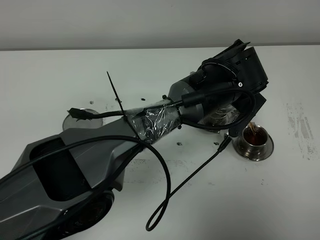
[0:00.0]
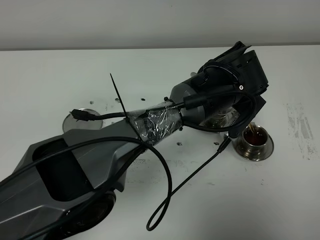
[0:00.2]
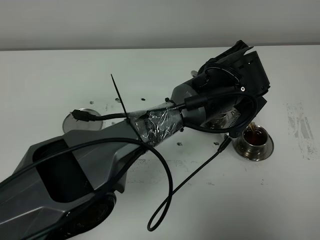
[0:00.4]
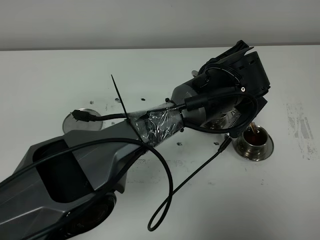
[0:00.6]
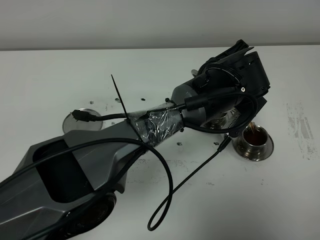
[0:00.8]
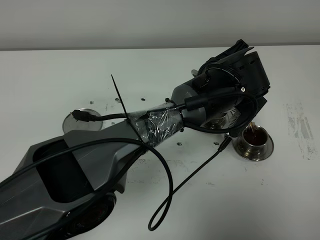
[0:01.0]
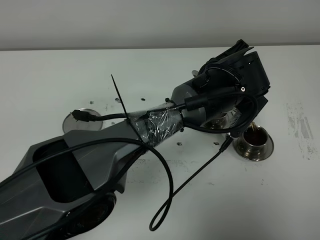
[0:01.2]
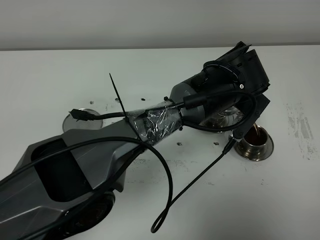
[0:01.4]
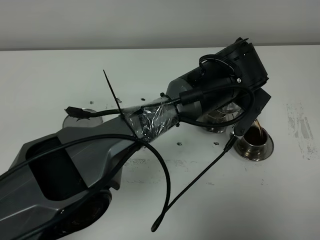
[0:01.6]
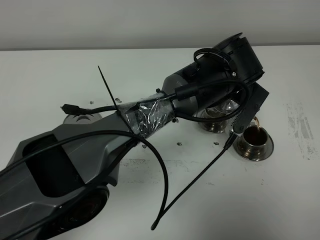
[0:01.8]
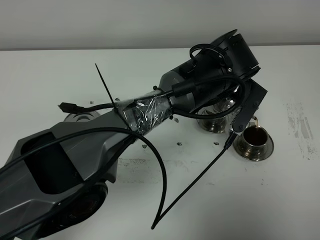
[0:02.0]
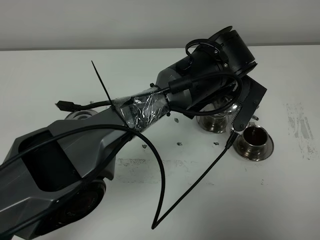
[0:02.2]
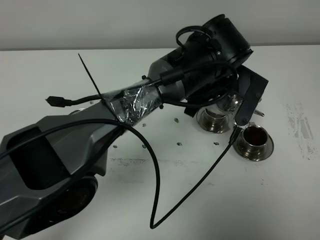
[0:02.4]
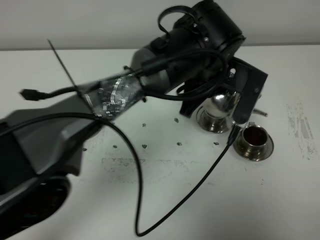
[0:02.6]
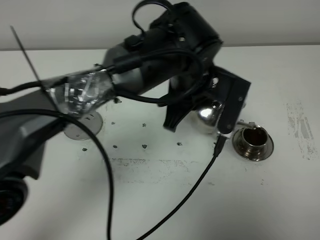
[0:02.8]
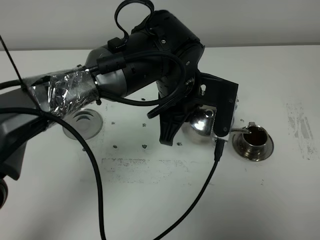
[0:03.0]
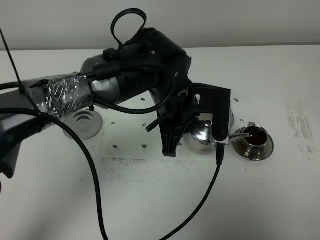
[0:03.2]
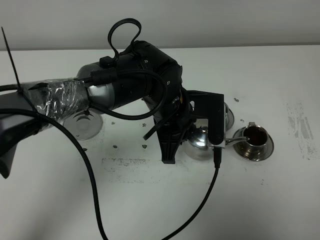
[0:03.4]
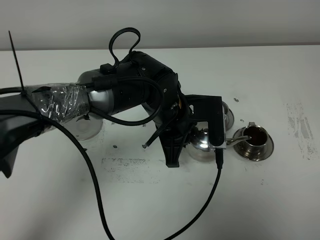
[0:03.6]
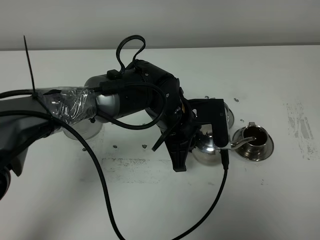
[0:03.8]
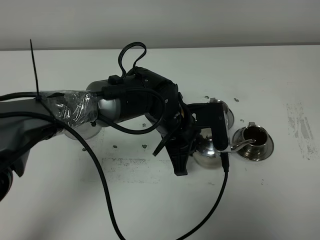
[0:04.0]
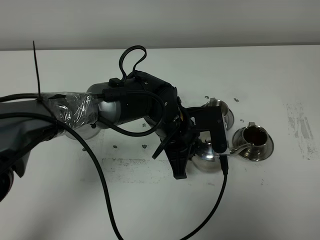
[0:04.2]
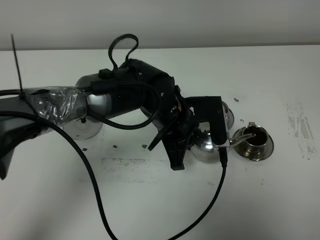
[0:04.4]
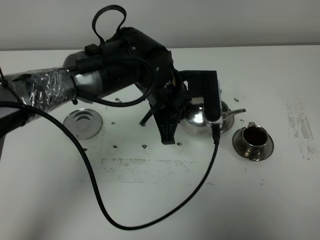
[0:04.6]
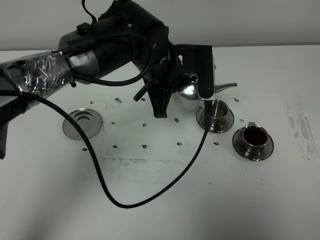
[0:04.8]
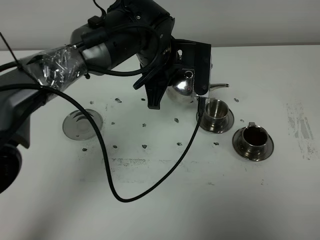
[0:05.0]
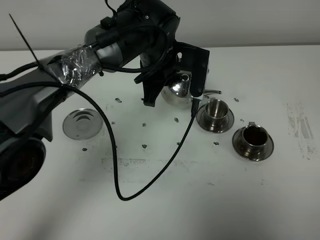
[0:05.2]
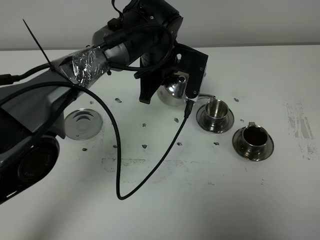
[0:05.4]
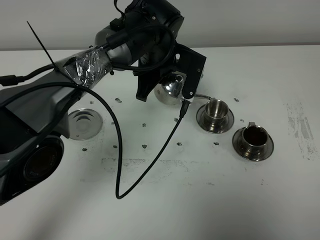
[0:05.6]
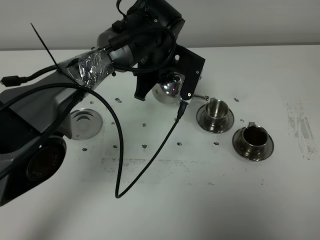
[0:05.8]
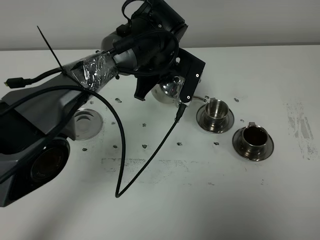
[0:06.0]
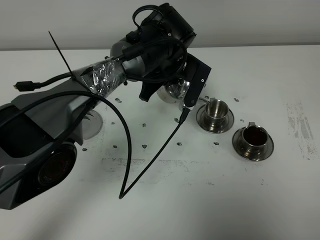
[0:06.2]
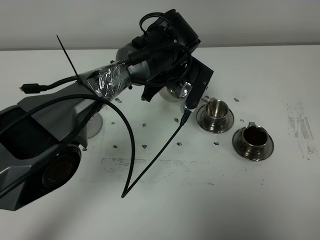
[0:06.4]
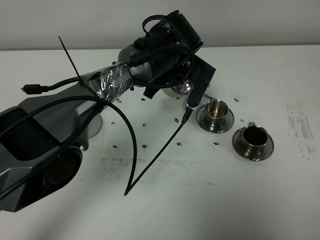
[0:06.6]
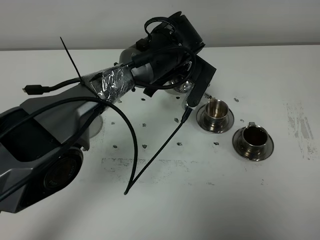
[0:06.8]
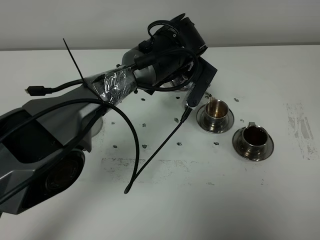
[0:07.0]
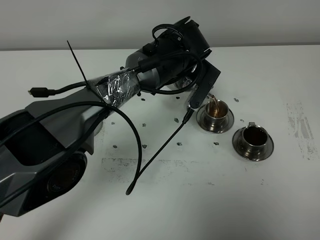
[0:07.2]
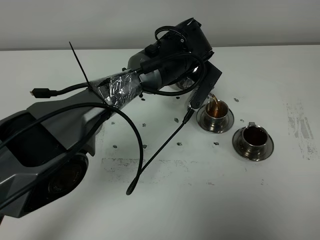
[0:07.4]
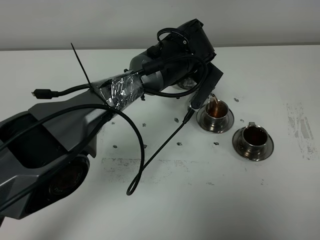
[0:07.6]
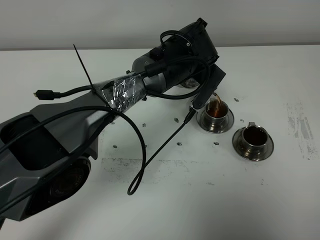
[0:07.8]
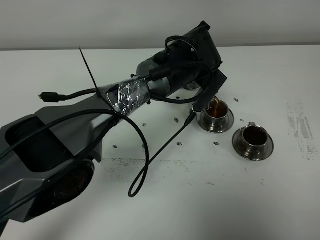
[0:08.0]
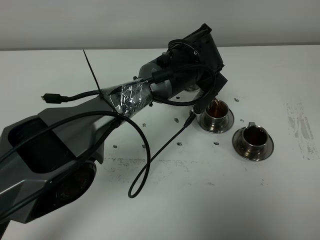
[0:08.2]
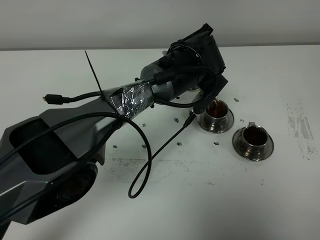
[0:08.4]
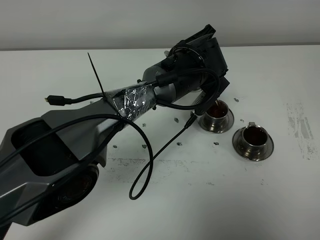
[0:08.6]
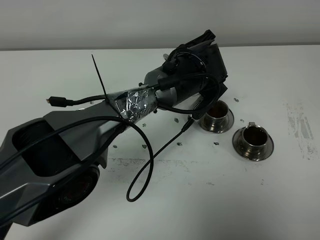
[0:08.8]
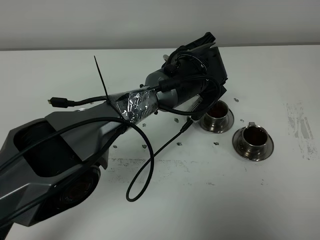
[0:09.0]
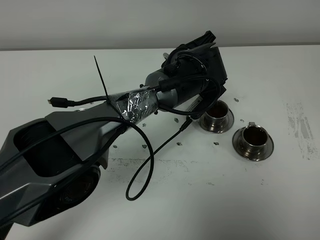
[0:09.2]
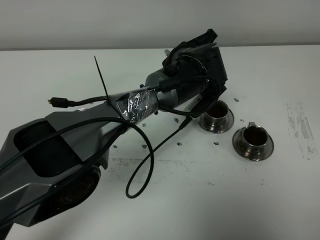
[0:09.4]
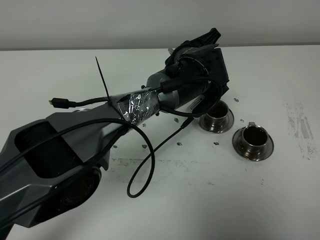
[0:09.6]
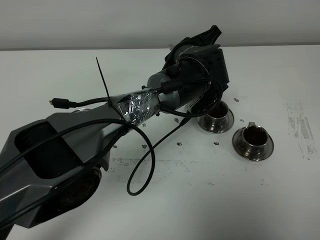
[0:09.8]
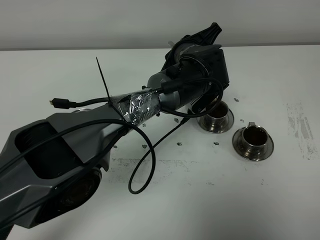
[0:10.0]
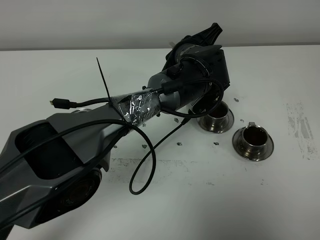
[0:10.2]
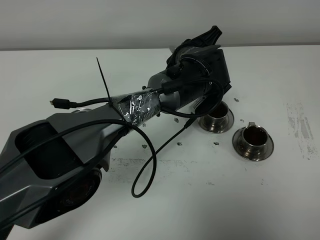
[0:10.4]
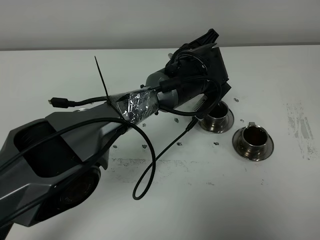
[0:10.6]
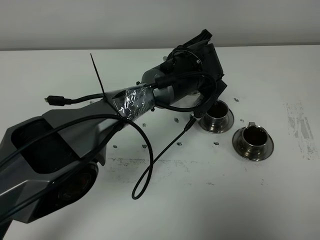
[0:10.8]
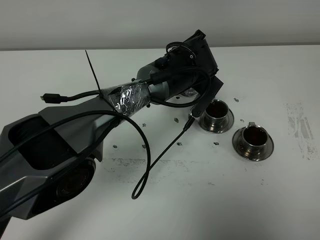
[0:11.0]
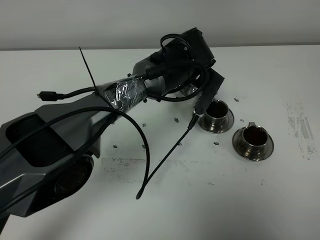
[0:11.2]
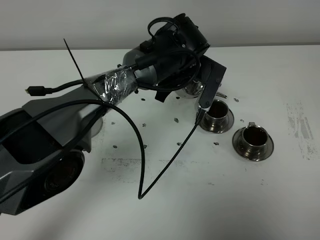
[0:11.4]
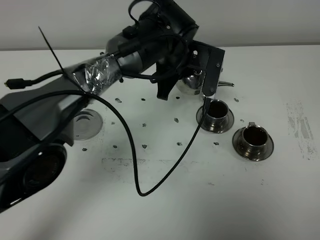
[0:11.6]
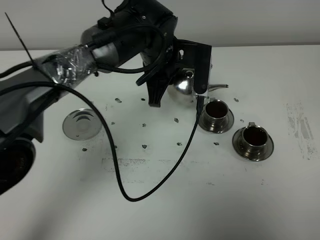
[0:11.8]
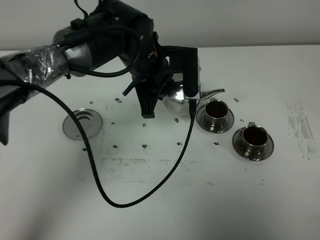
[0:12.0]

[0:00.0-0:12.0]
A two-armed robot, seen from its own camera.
Task of the whole recording: grasp the stainless steel teapot and pour the tea into the two stainless steel teacups one by one, put the stainless steel teapot back in its original place.
Step, 0:00.0 to 0:11.2: Pour tea into the teacup with the left gripper.
0:00.0 to 0:01.6: Both grippers stay about where they are.
0:01.6 to 0:03.0: The left gripper is displaced to the left by roughly 10 cm.
0:03.0 to 0:04.4: The left gripper moves downward, approximately 5 cm.
0:04.4 to 0:06.0: The left gripper heads forward, covering about 10 cm.
0:07.6 to 0:10.4: The grippers move only a little.
0:10.4 to 0:12.0: The left gripper goes about 10 cm to the left.

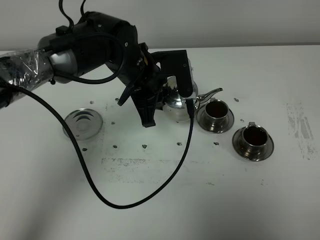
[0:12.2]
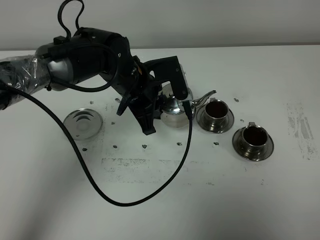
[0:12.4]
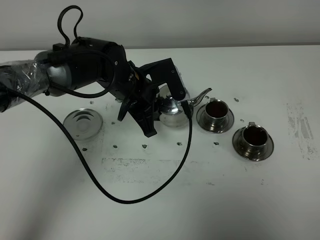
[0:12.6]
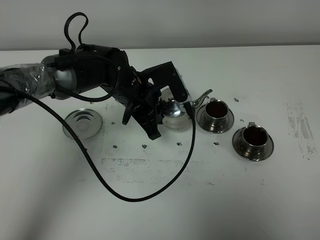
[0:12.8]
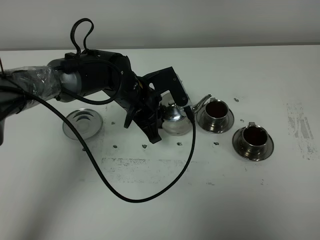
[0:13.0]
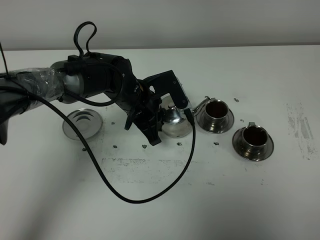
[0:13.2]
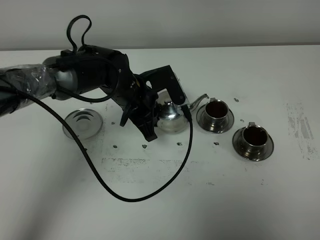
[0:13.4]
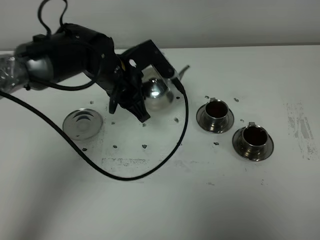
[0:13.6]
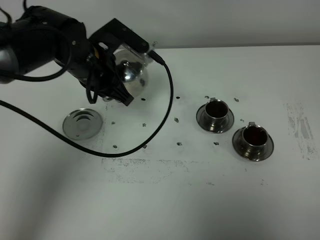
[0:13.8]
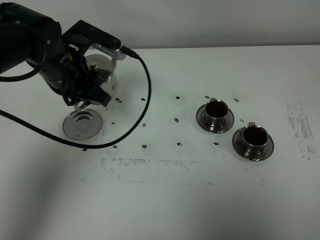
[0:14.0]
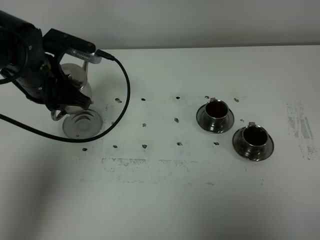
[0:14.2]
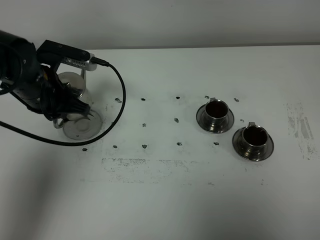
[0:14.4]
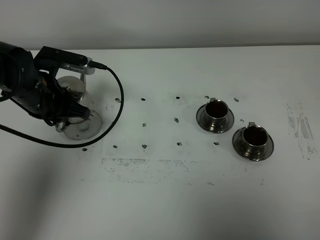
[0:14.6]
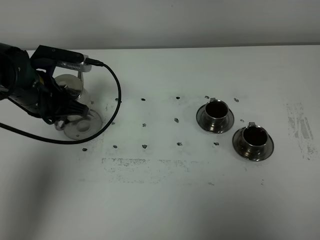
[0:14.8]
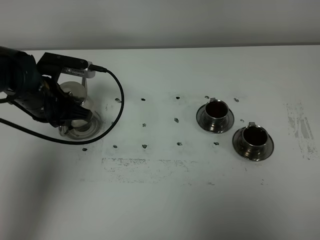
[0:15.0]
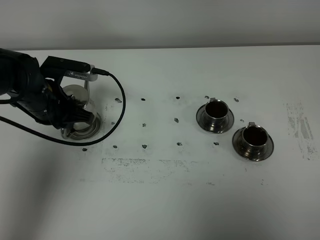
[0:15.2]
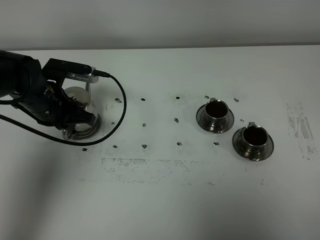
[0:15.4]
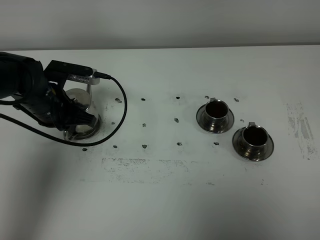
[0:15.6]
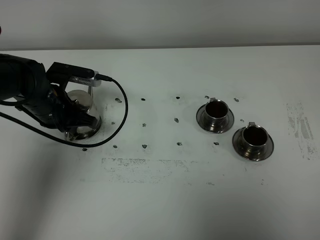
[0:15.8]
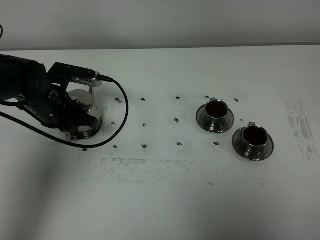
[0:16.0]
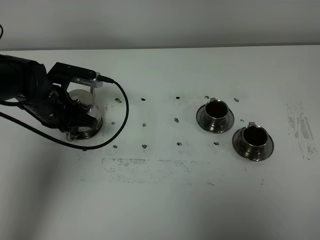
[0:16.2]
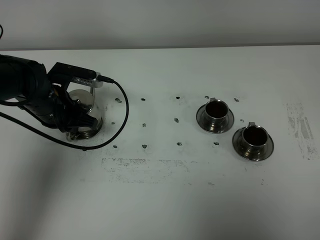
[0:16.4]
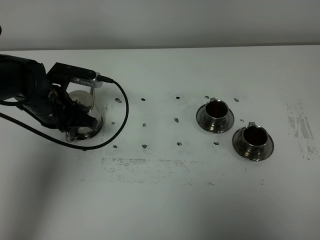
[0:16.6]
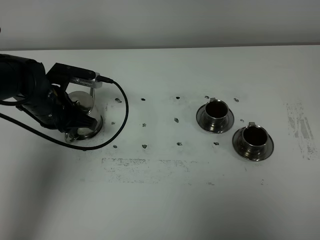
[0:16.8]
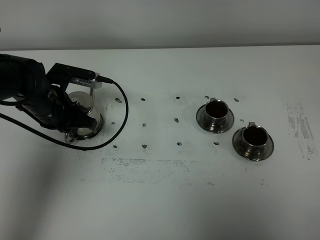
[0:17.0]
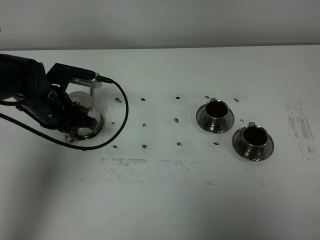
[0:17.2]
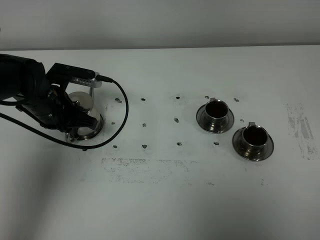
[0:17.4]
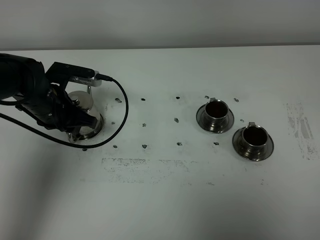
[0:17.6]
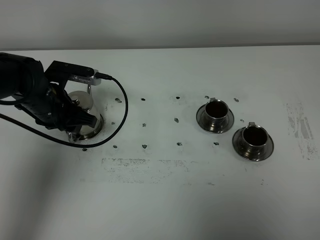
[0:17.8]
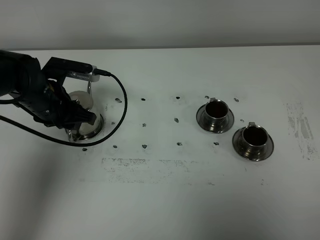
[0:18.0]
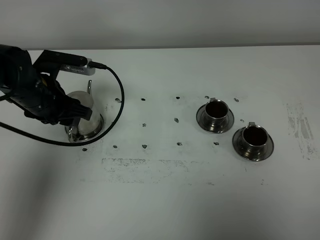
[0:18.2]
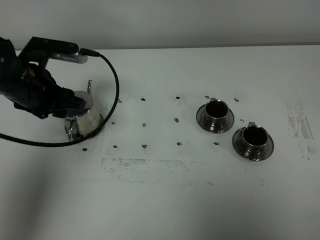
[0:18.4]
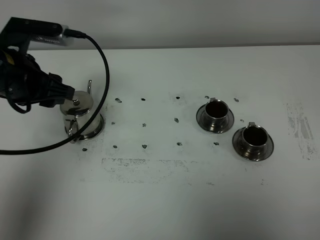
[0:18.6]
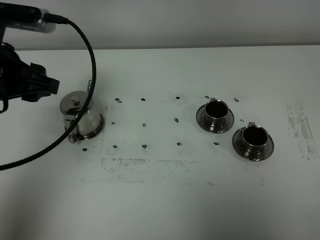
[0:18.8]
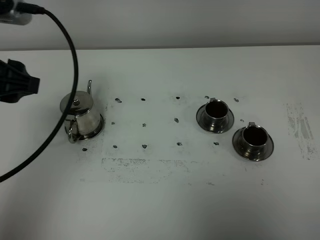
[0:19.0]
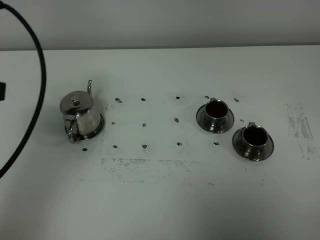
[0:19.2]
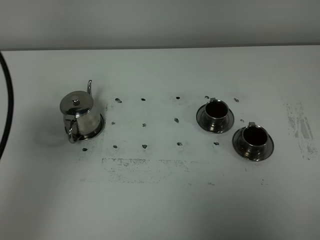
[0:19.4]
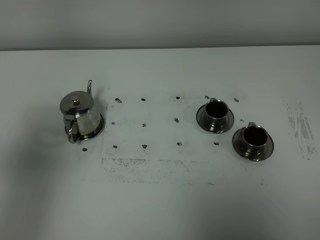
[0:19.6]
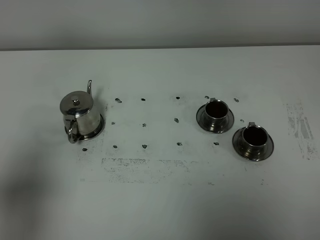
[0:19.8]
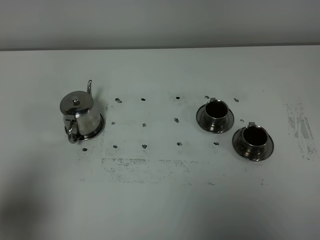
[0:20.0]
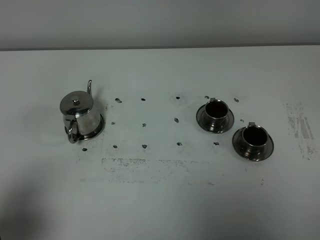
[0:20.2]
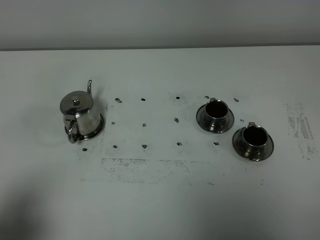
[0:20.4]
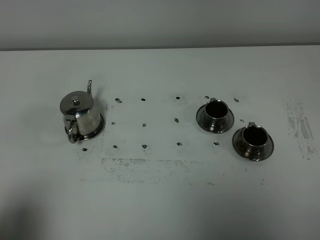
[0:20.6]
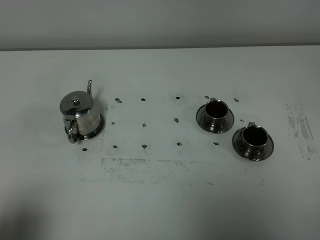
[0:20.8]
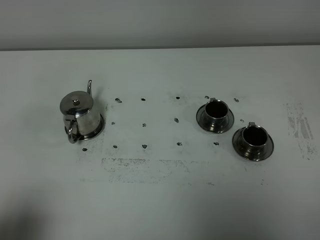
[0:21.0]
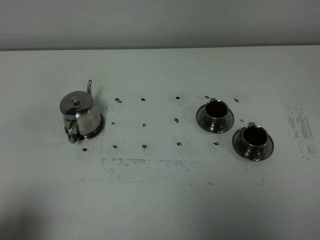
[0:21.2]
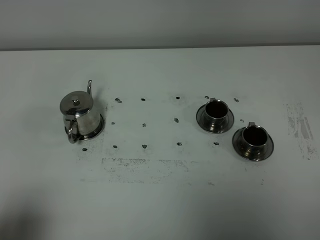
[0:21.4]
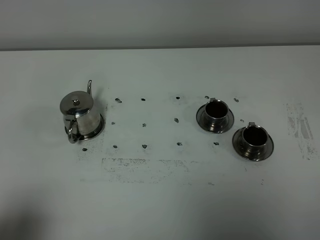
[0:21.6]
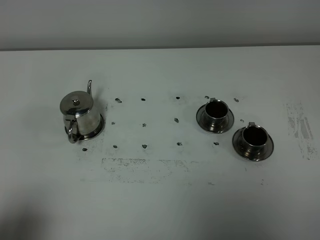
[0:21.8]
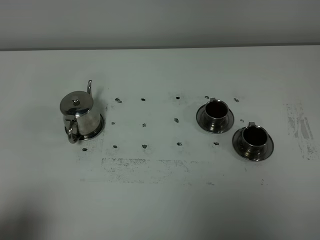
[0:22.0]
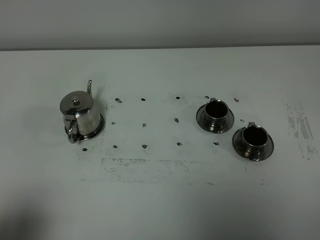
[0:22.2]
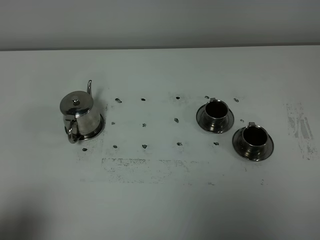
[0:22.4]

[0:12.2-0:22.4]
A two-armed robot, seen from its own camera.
Task of the whole recording: grasp the stainless steel teapot and pour the tea into the two stainless steel teacups one by one, put the stainless steel teapot back in its original place.
0:13.6 to 0:15.2: The left gripper shifts about 10 cm to the left.
0:15.2 to 0:16.6: There are only small adjustments of the grippers.
0:16.6 to 0:18.0: The left gripper opens its fingers.
0:18.0 to 0:19.4: The left gripper is displaced upward and backward by roughly 30 cm.
0:19.4 to 0:21.0: The left gripper goes approximately 20 cm backward and downward.
0:21.0 to 0:22.4: Neither gripper changes place.
